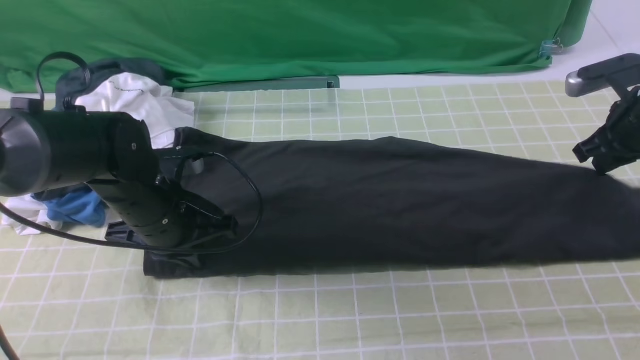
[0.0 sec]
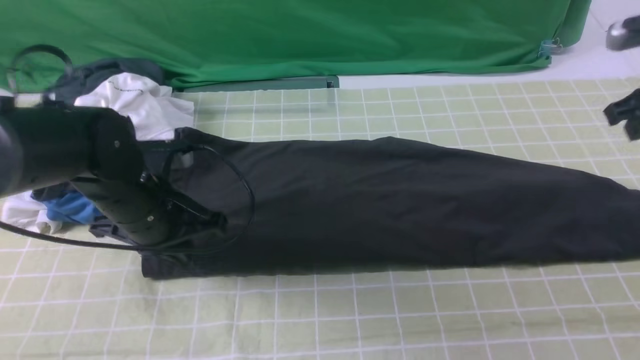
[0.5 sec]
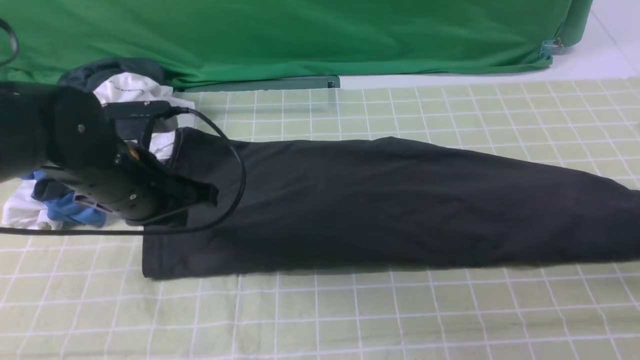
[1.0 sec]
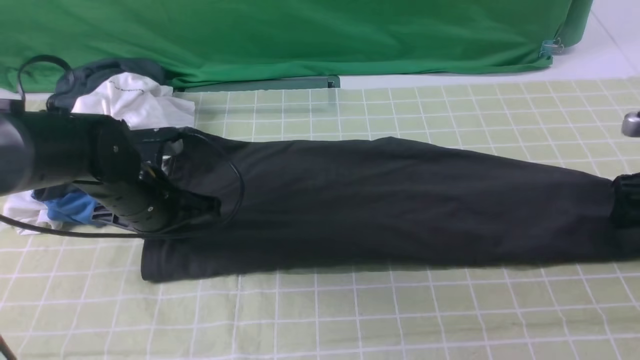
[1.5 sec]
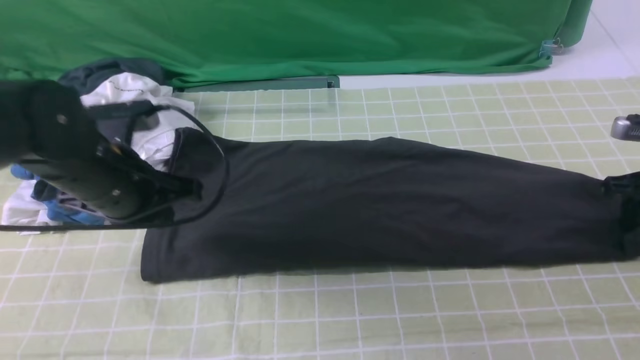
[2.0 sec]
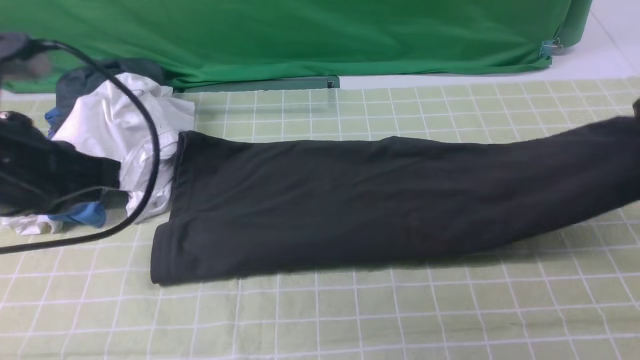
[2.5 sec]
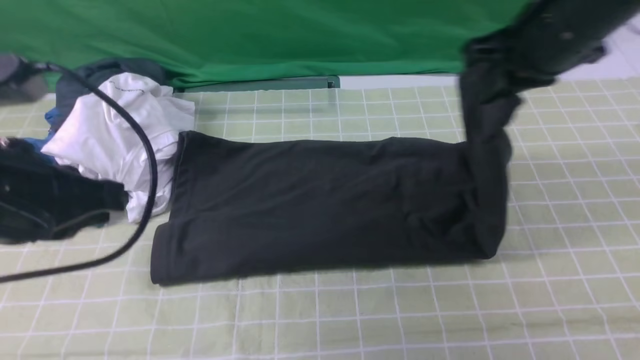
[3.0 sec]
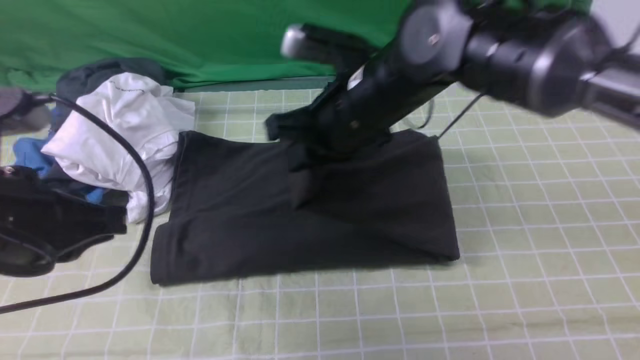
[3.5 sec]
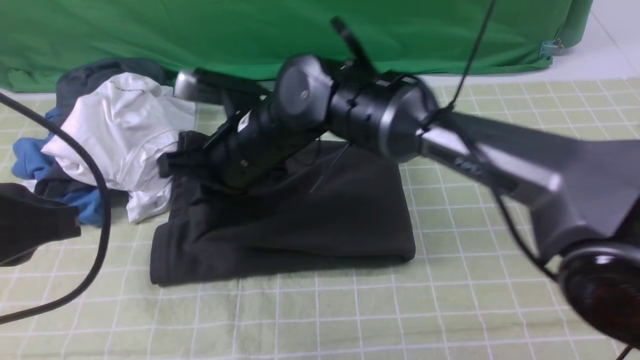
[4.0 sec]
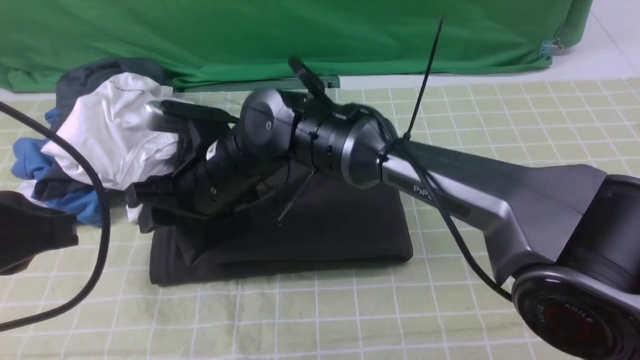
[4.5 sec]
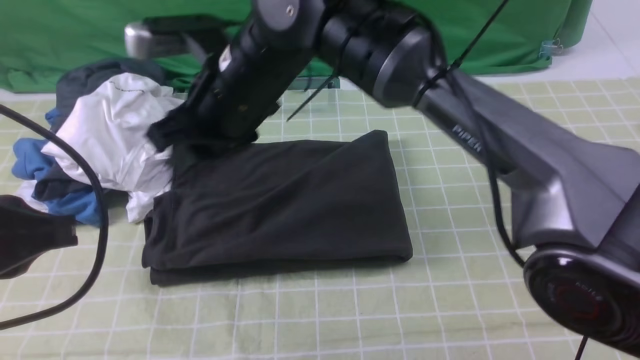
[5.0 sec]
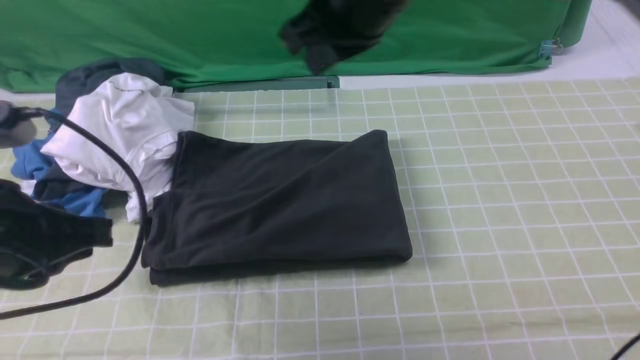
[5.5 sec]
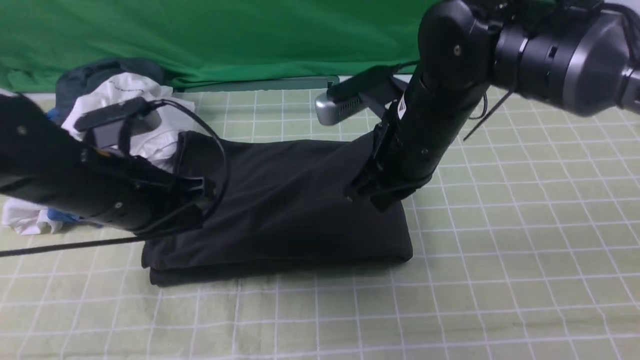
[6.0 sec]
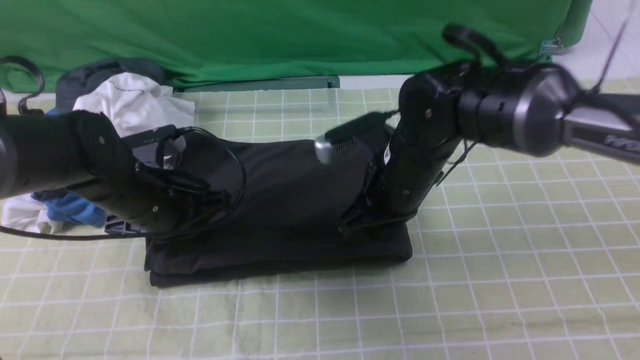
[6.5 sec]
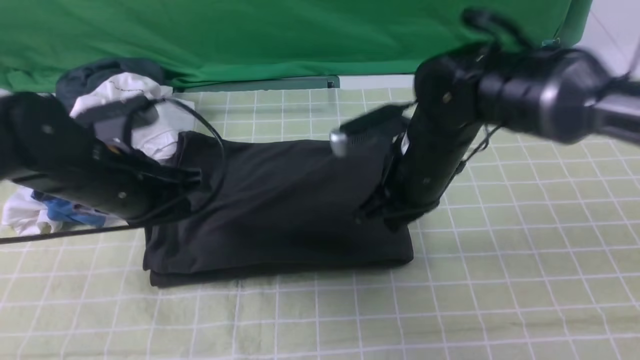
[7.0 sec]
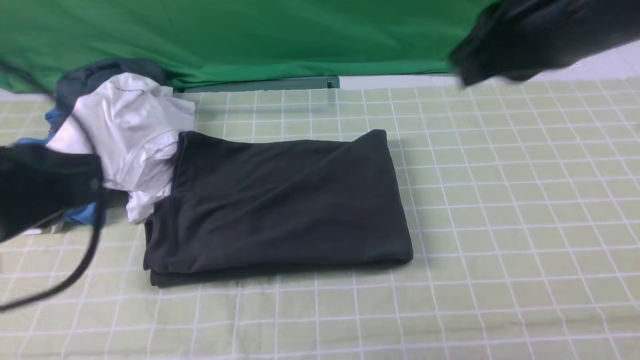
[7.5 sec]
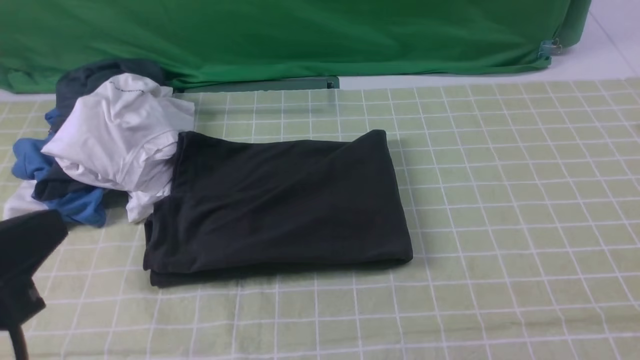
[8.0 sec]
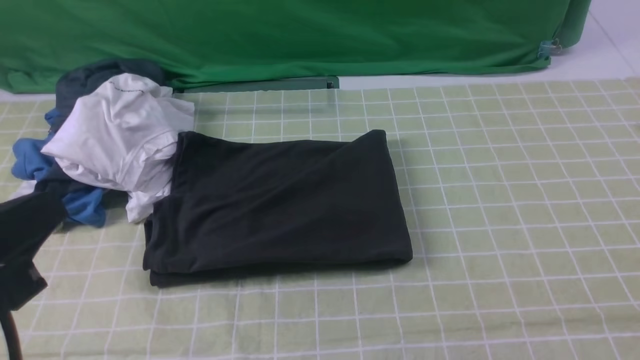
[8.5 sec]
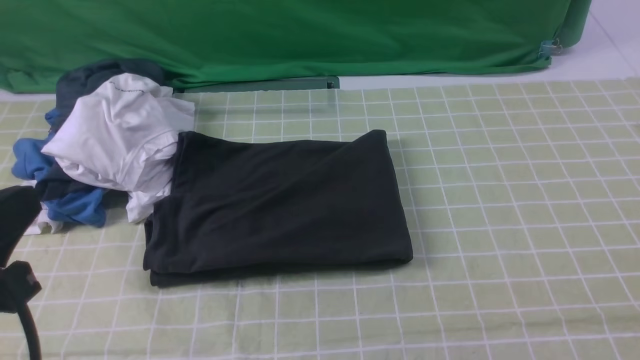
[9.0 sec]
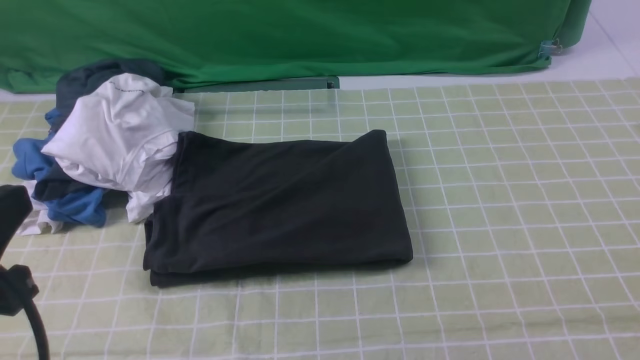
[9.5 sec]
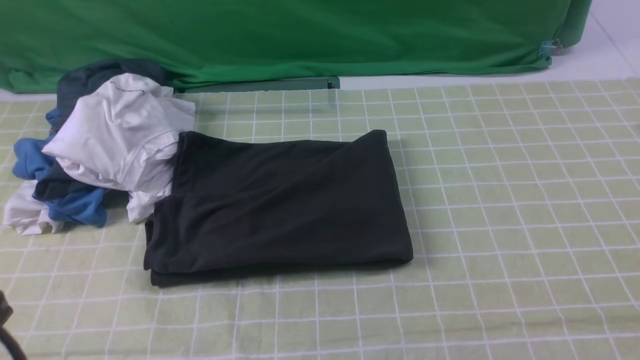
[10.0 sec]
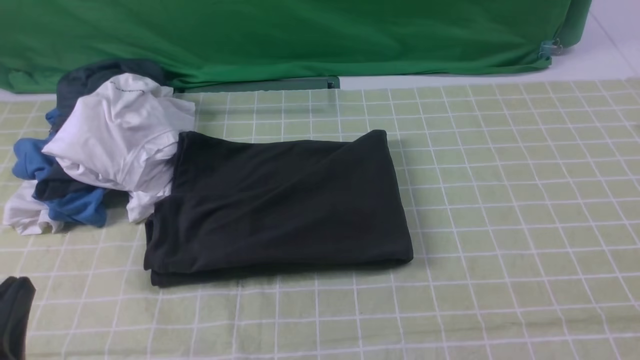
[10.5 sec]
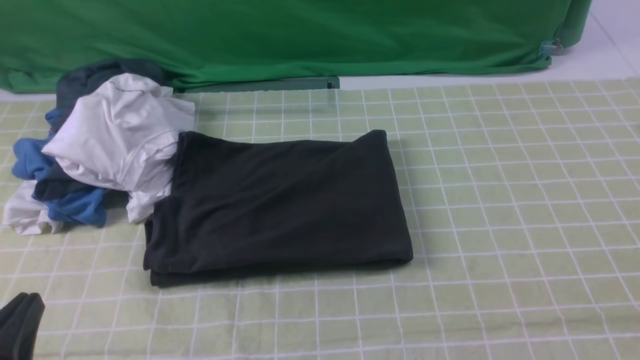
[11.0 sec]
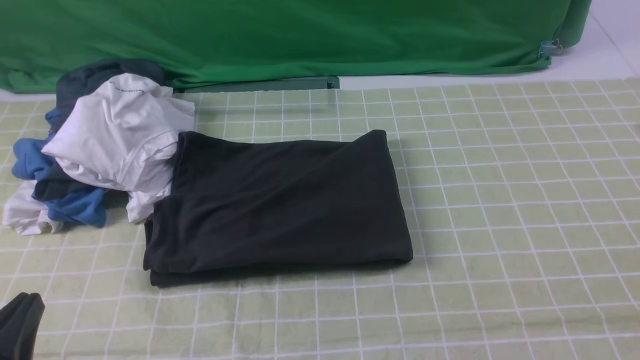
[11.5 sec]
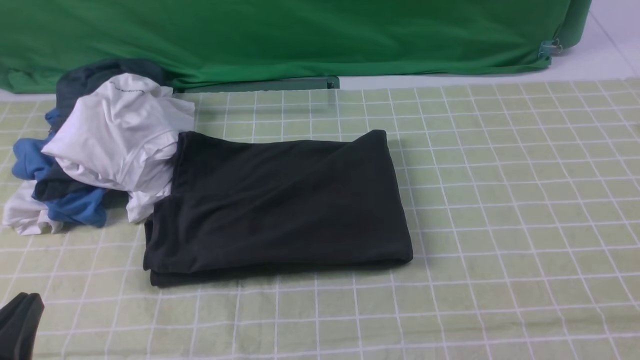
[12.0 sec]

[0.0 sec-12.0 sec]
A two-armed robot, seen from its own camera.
Step, 0.0 sec to 2.0 sec: use the right arm to clamp the right edge of the fabric.
Step, 2.5 sec to 4.5 sec: use the right arm to drag the right edge of the fabric to the left and folds it over the left edge.
0.0 sec to 2.0 sec: The right gripper moves some 5 cm upward and comes back, and opens and closes again; the left gripper swings up and down, some 10 cm each way, with 2 reversals.
2.0 sec to 4.0 sec: The right gripper heads to the left, covering some 50 cm. The left gripper shifts roughly 15 cm backward and upward.
4.0 sec to 6.0 sec: The right gripper goes some 15 cm to the right, and opens, then closes once more, while the left gripper shifts roughly 15 cm forward and downward.
6.0 sec to 8.0 sec: The right gripper shifts some 35 cm backward, to the right and upward. The left gripper goes approximately 20 cm backward and upward.
10.0 sec to 12.0 sec: The left gripper heads downward, covering some 10 cm.

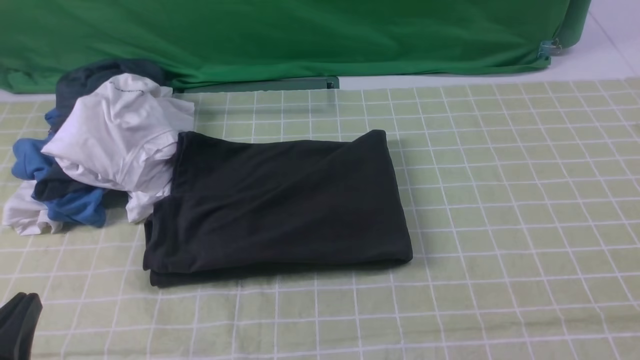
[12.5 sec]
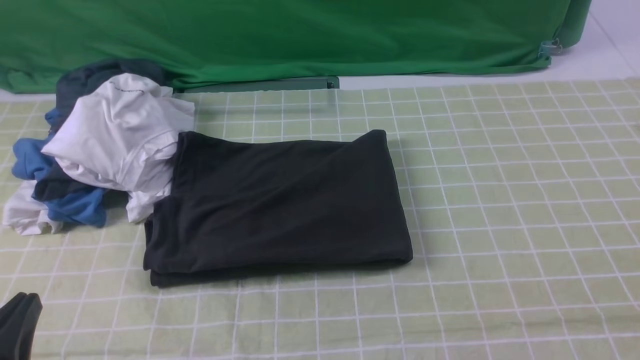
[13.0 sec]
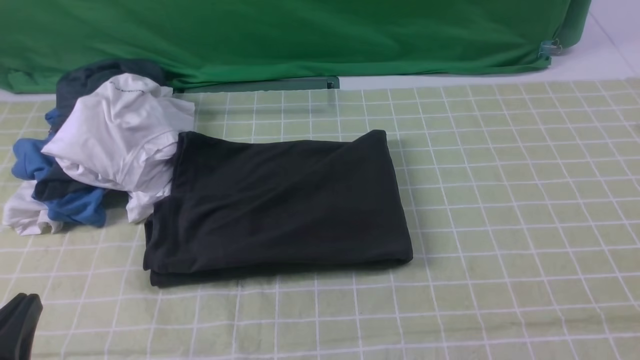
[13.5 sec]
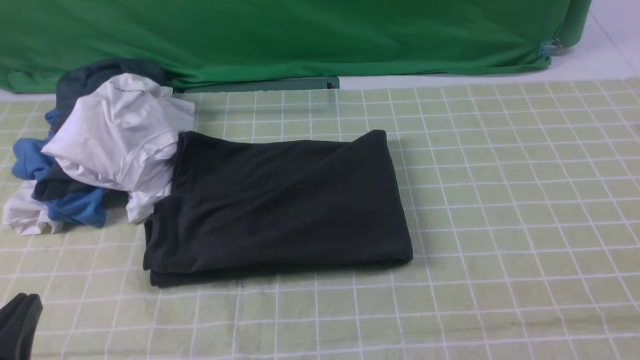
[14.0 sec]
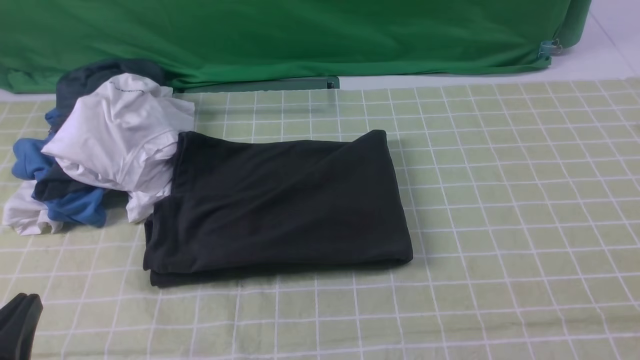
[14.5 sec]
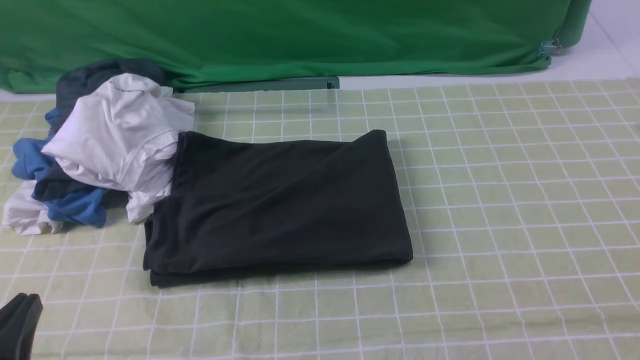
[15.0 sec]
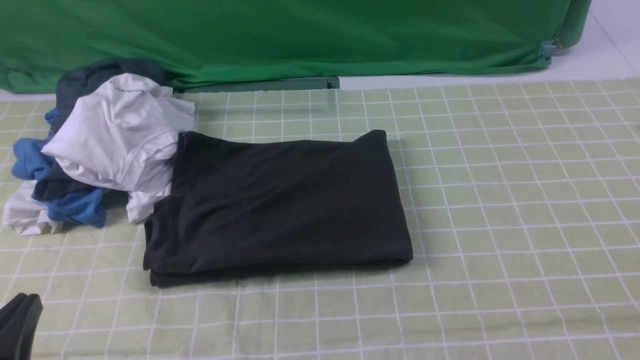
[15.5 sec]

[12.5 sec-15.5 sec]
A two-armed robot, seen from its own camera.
14.0 sec to 15.5 sec: Both grippers stay put.
